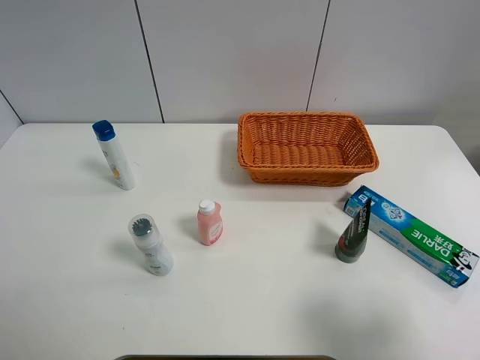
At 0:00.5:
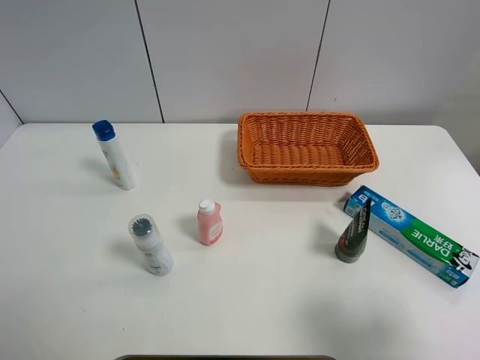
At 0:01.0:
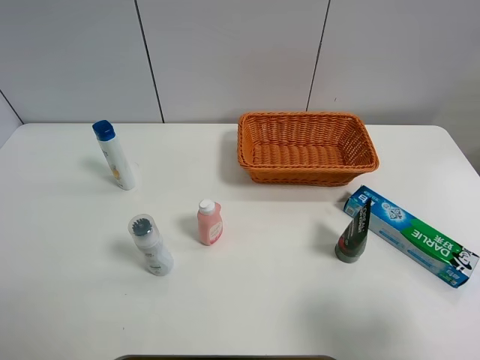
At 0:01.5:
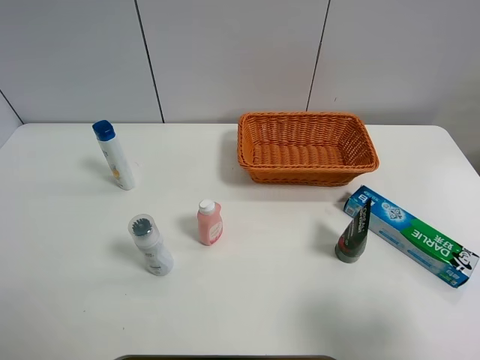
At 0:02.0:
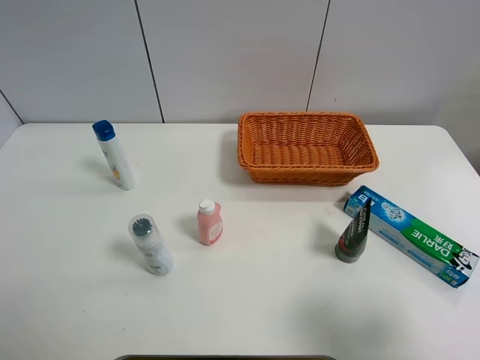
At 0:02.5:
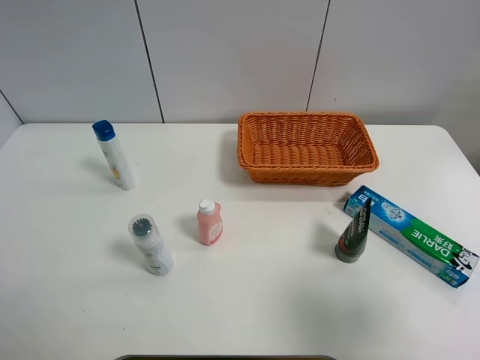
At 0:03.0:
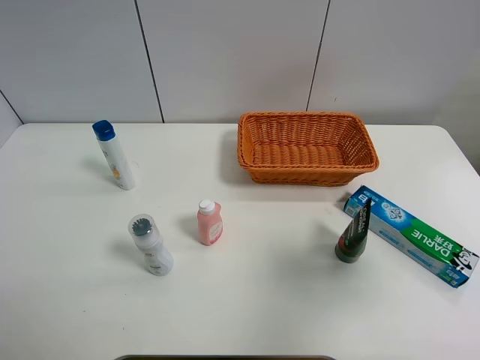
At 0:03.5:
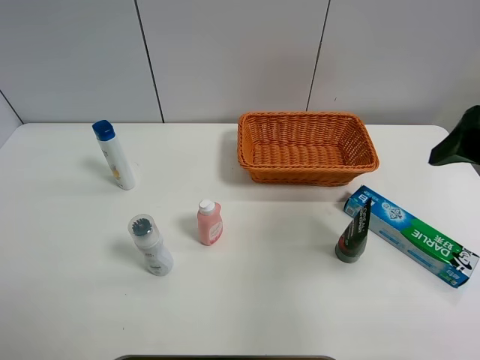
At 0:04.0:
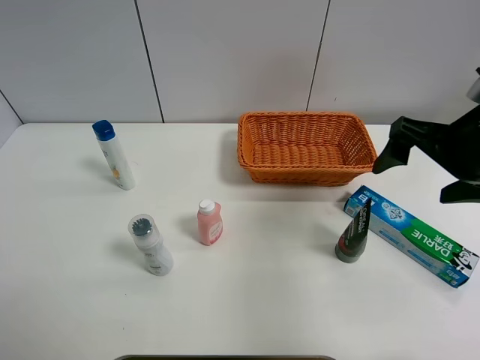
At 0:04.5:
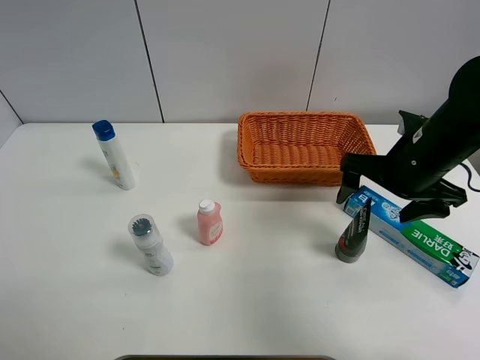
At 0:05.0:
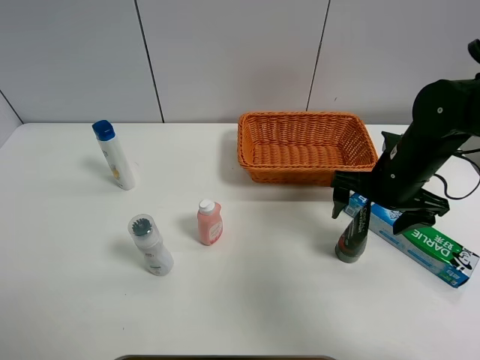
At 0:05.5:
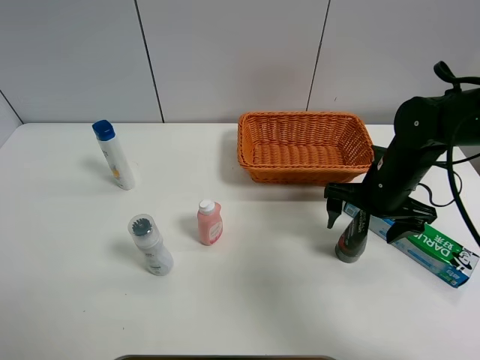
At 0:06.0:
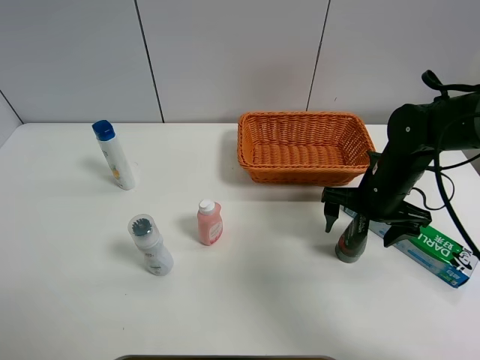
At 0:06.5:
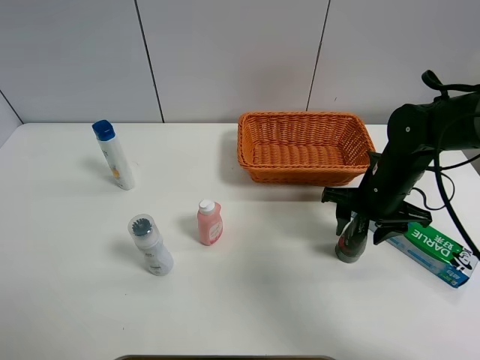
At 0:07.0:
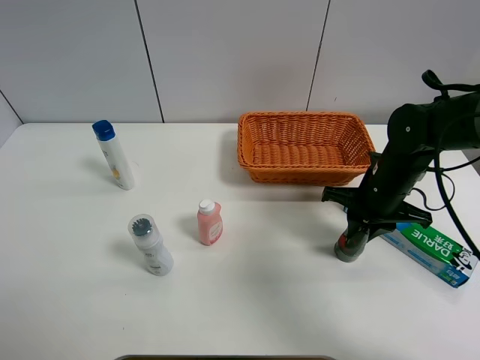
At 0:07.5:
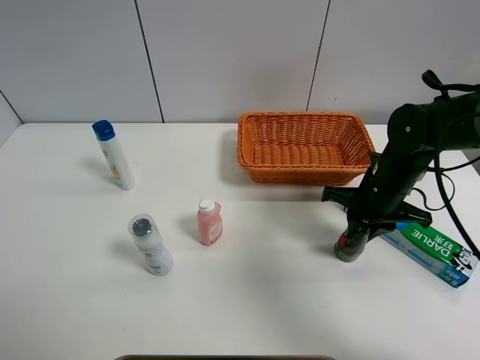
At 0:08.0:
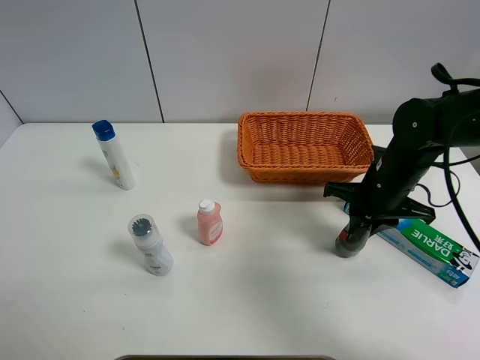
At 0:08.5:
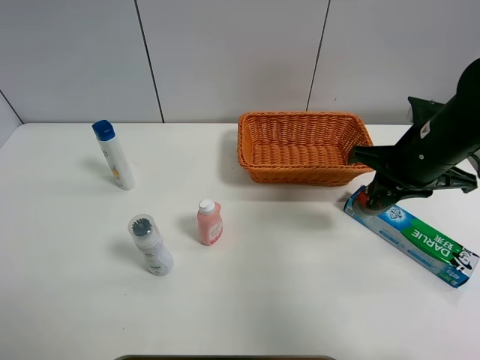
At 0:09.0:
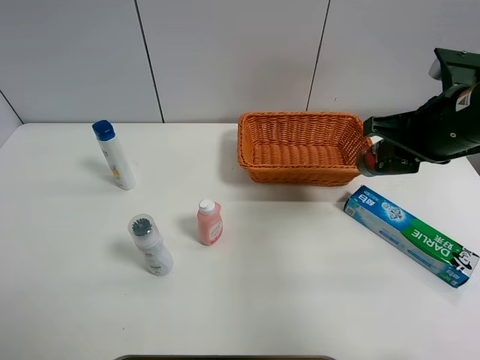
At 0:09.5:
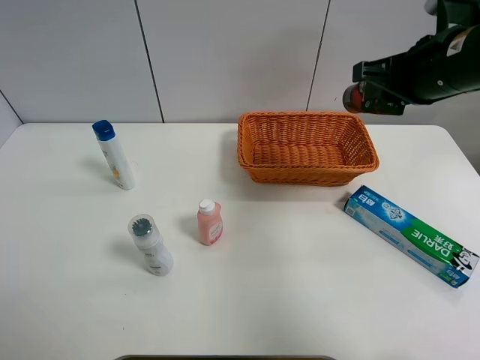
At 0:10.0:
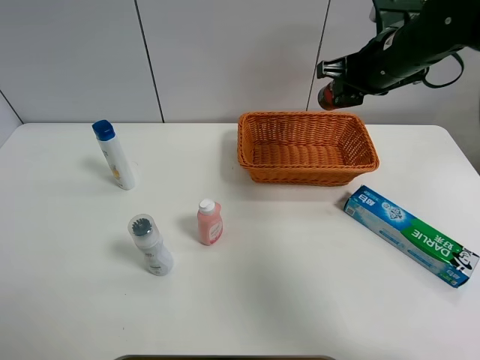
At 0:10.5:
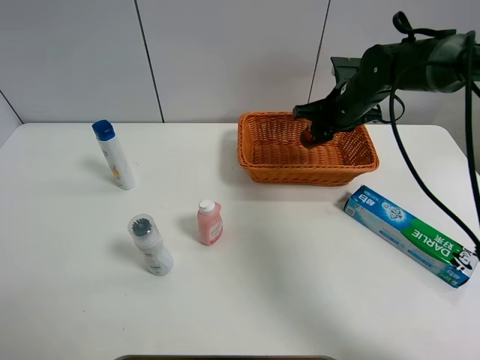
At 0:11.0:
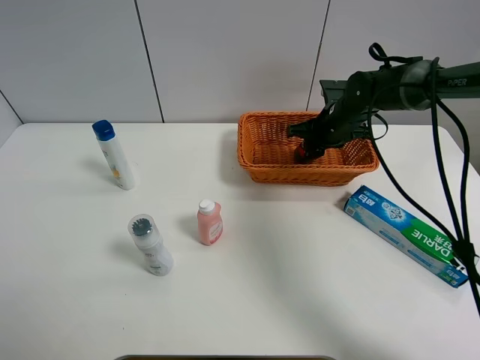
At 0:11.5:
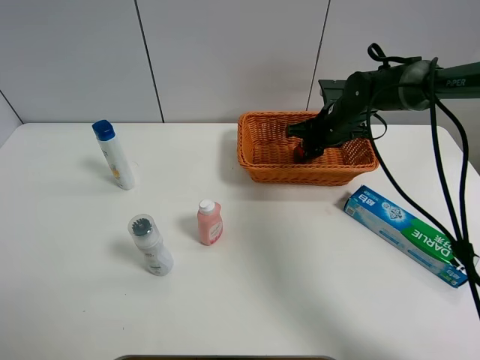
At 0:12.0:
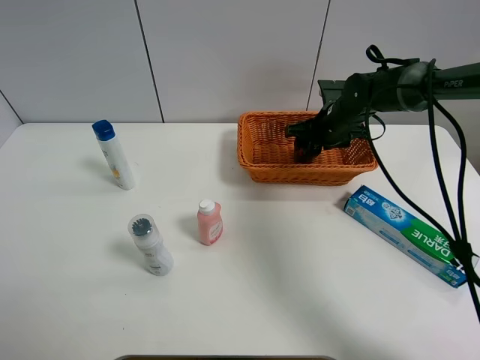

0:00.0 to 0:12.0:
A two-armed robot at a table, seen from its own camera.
Task of the whole recording: Place the object closest to the toothpaste in the basket.
Step, 0:00.0 to 0:06.5: Grasp the soft facial cleanser with right gripper.
0:00.0 to 0:02.0: Neither gripper changes place.
0:02.0 to 0:04.0: The right gripper moves forward, approximately 20 cm.
0:04.0 to 0:06.0: The right gripper is displaced downward and forward by about 15 cm.
0:06.0 to 0:08.0: The right gripper closes.
0:08.0 to 0:10.0: The right gripper shifts roughly 15 cm upward and forward.
0:10.0 to 0:12.0: The right gripper goes approximately 15 cm downward and forward, and opens up.

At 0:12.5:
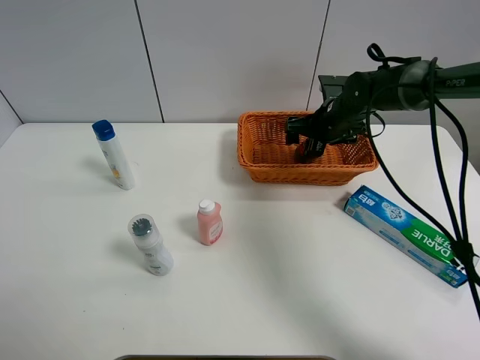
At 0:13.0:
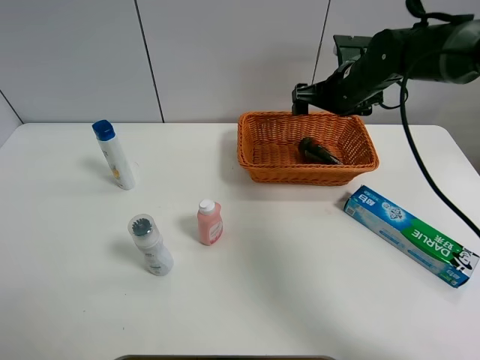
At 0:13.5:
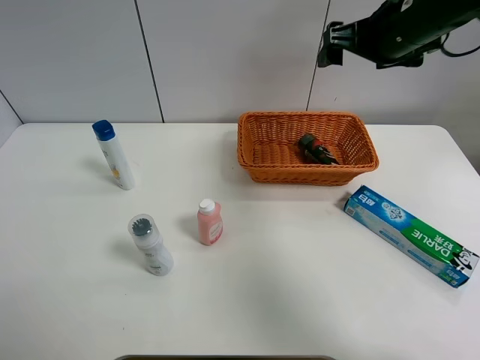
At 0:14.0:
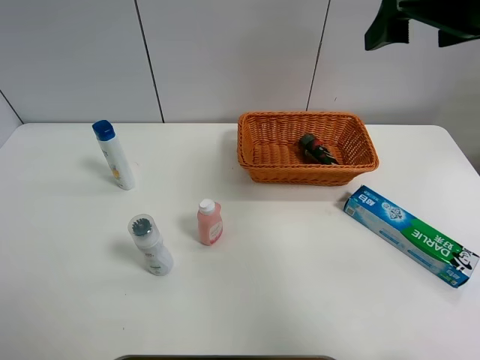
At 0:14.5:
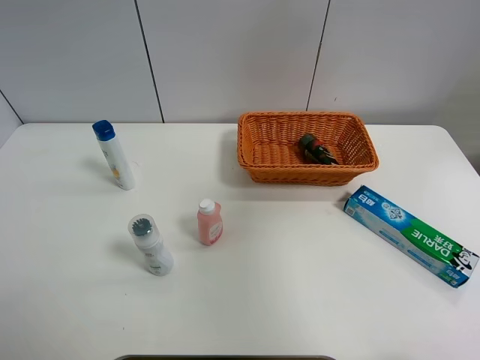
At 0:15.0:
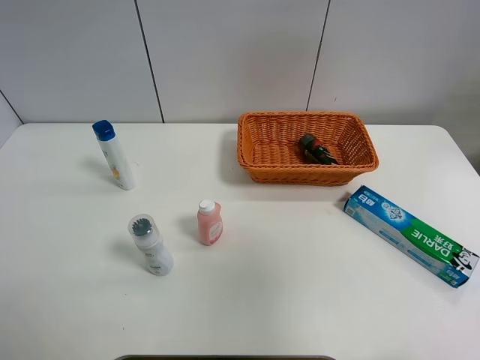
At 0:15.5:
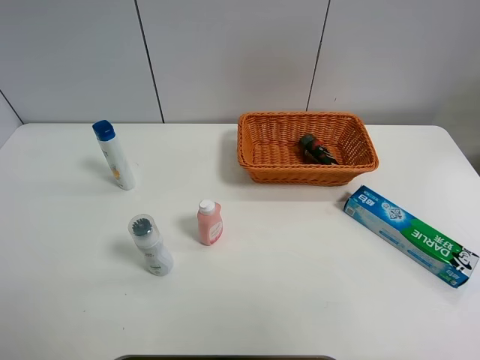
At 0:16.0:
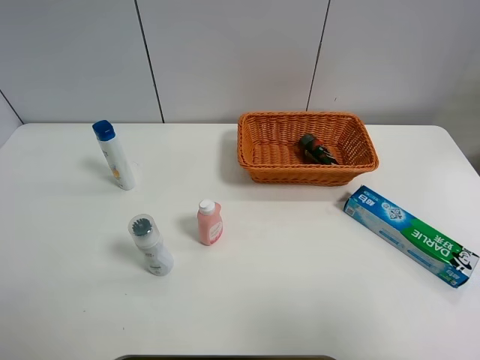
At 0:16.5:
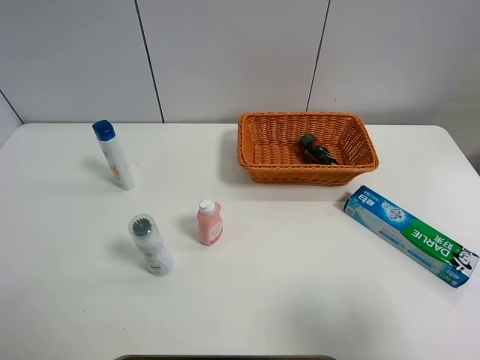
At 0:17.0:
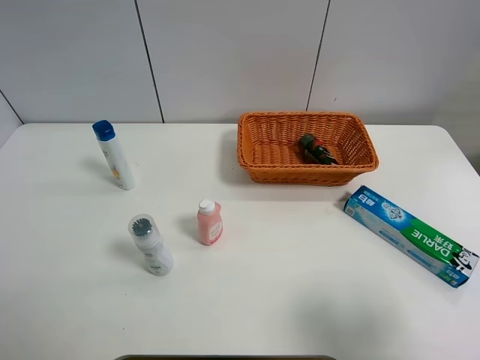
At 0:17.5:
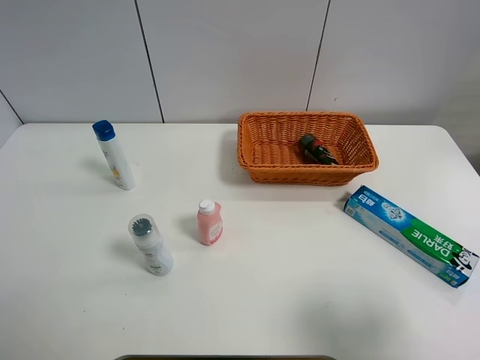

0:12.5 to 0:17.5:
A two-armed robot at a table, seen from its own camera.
Task of the whole recording: Place the object closest to the toothpaste in the basket.
0:12.5 to 0:15.0: The right gripper is displaced backward and upward by approximately 50 cm.
0:15.0 to 0:17.5: The right gripper goes some 20 cm downward.
